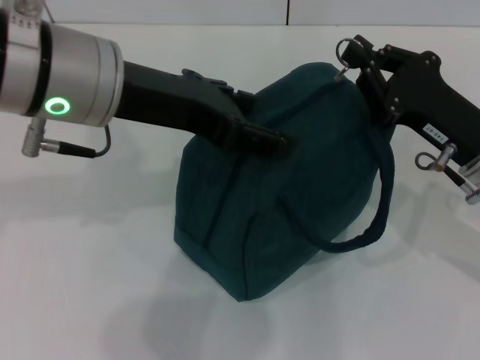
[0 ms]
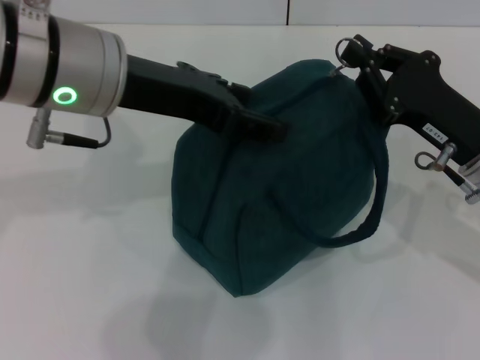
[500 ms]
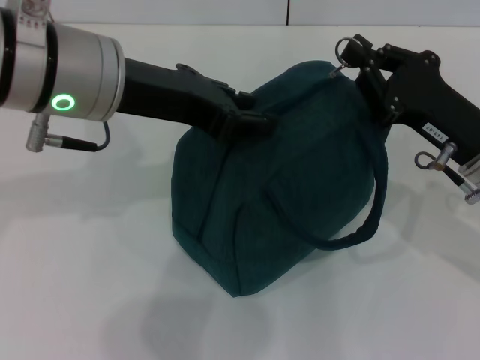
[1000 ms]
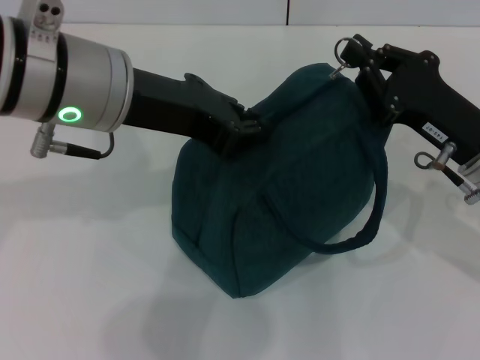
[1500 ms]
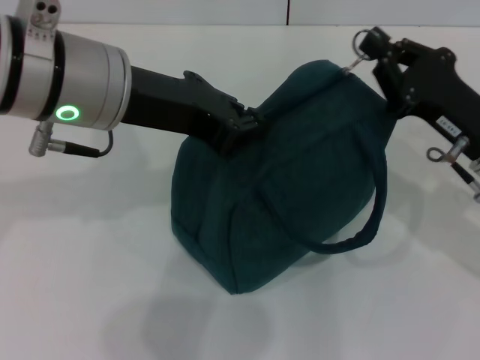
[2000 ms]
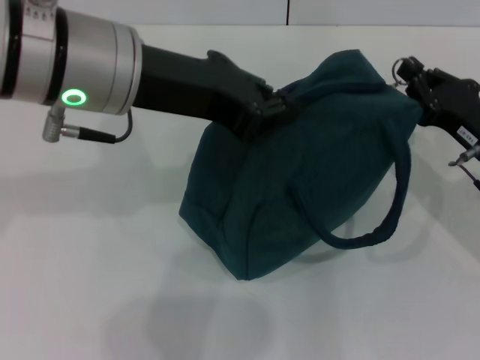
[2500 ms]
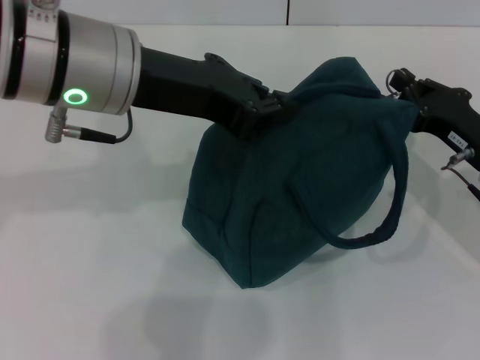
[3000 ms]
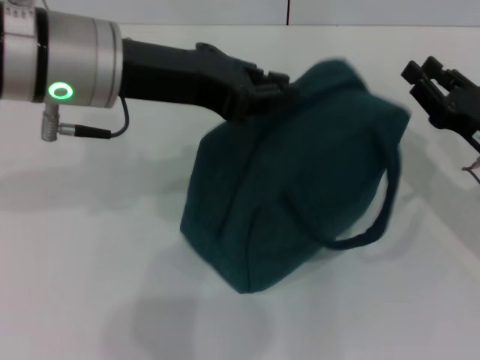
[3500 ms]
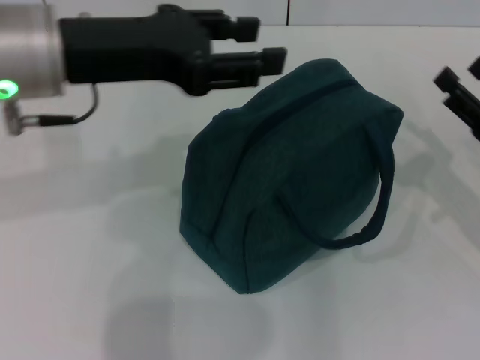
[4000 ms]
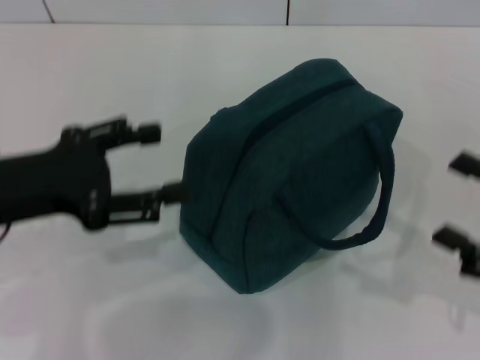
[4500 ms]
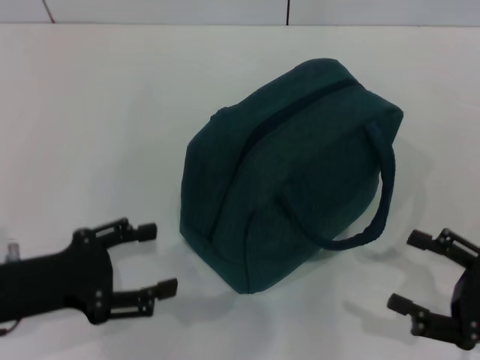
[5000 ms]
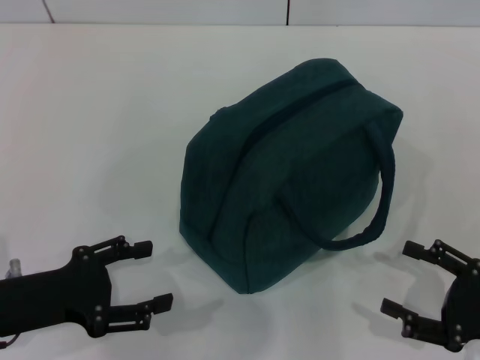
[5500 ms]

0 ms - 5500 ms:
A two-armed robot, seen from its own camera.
Step, 0 ms - 3000 ms: Zip up the lunch bag with your right hand.
0 ms - 2000 ms: The left gripper closes its fingers.
2000 ms - 3500 ms: The right gripper ends up approximately 5 cm from where it was.
3500 ms - 5500 ms: The right gripper moves backward, about 15 cm, and opens its fingers, while the left gripper travels downward, to the left and backward by about 25 cm, and opens.
